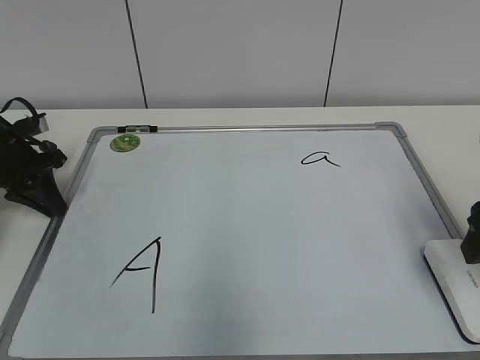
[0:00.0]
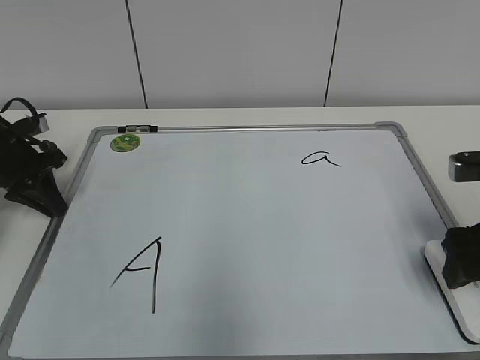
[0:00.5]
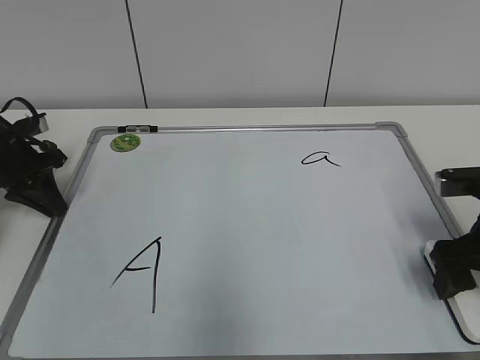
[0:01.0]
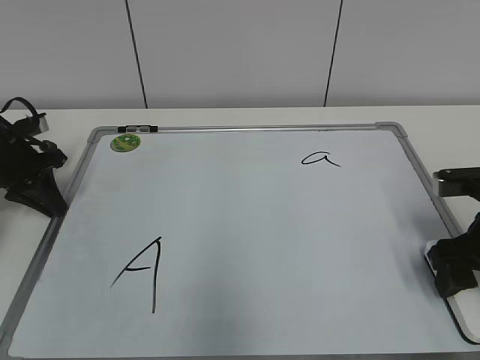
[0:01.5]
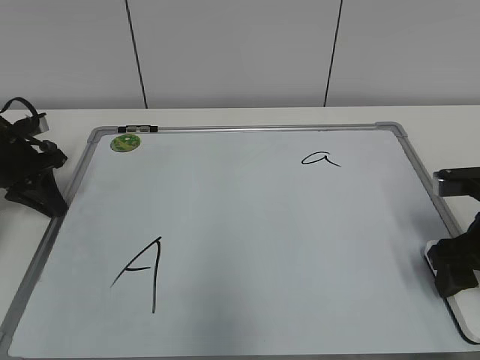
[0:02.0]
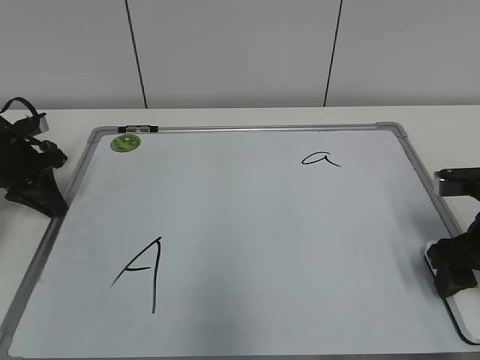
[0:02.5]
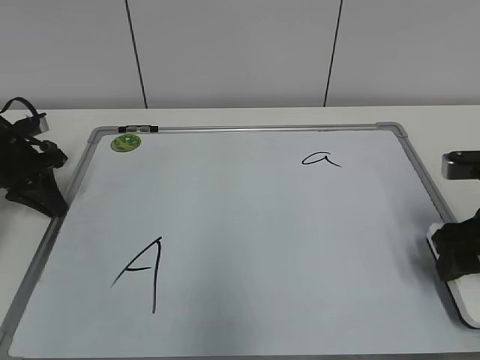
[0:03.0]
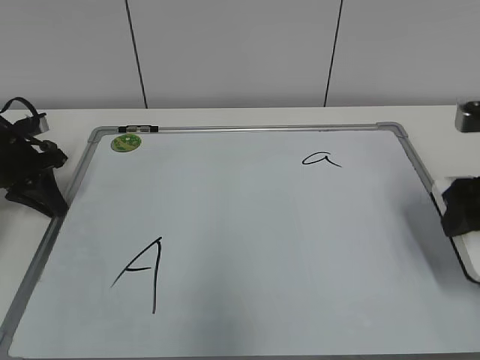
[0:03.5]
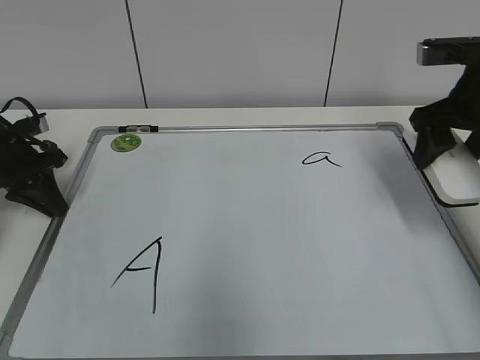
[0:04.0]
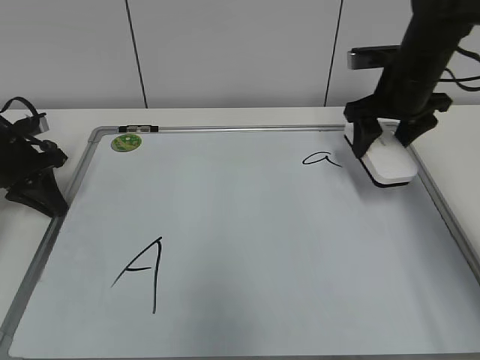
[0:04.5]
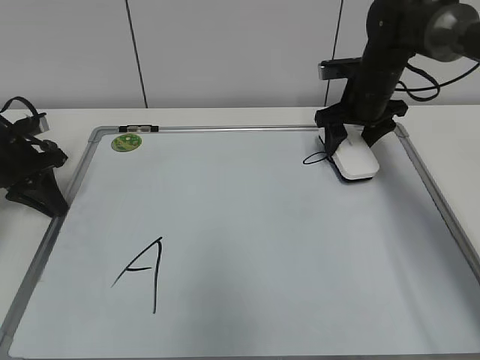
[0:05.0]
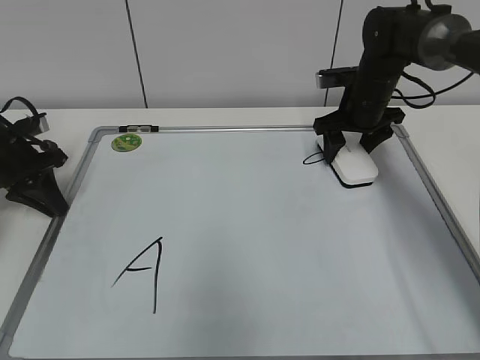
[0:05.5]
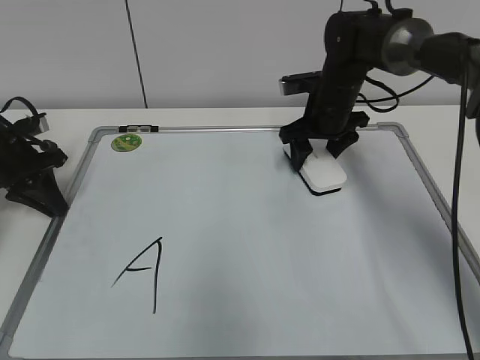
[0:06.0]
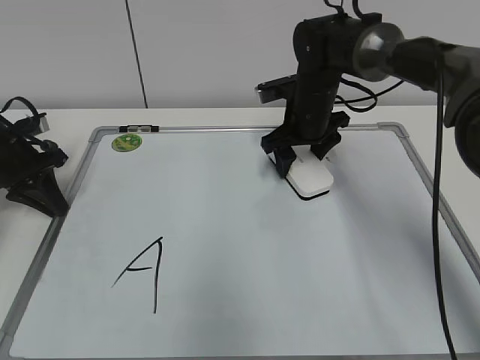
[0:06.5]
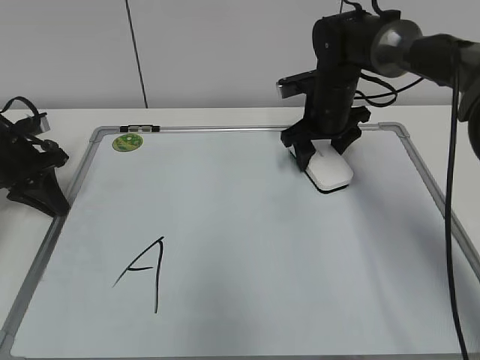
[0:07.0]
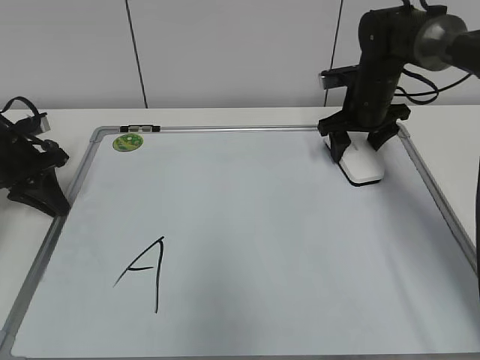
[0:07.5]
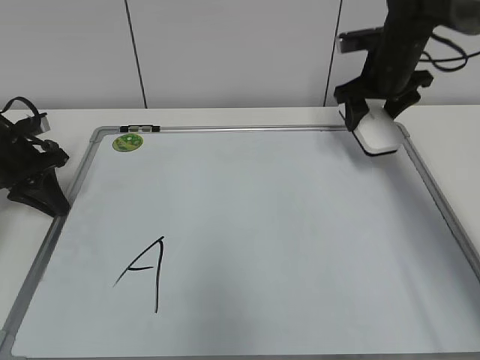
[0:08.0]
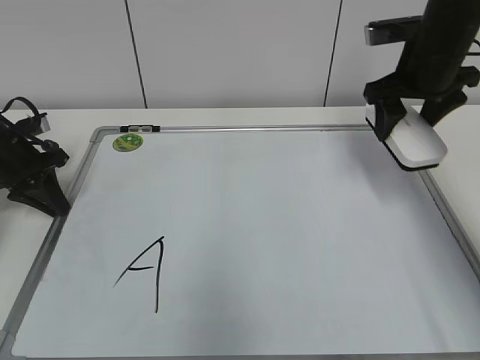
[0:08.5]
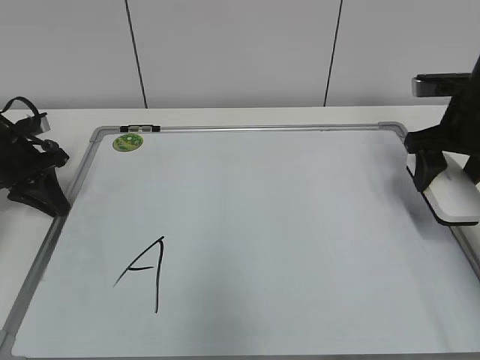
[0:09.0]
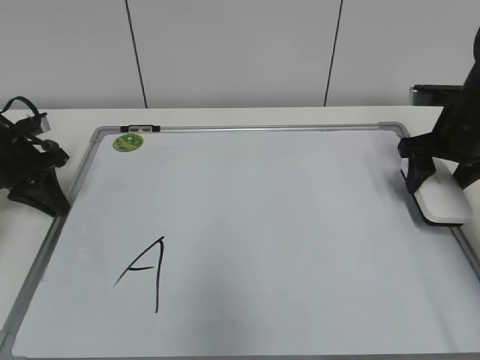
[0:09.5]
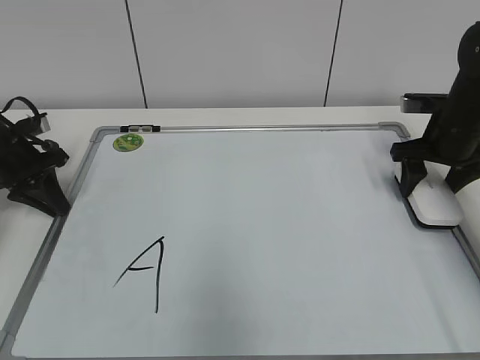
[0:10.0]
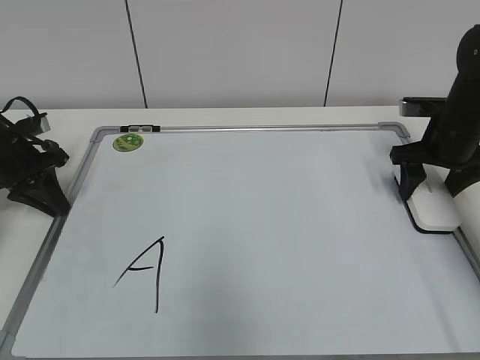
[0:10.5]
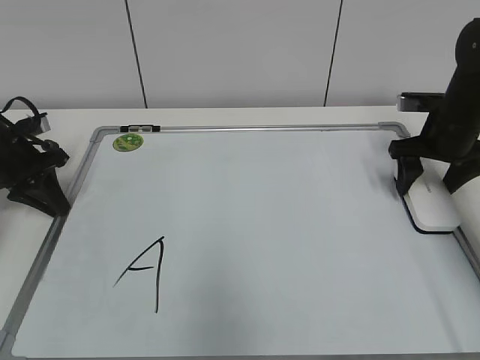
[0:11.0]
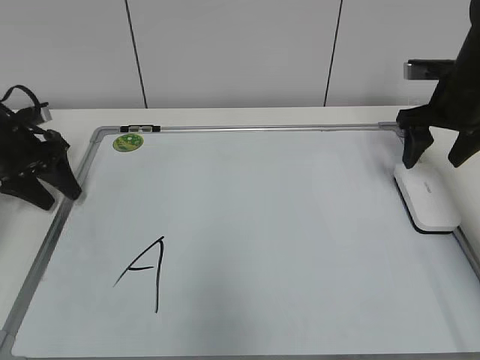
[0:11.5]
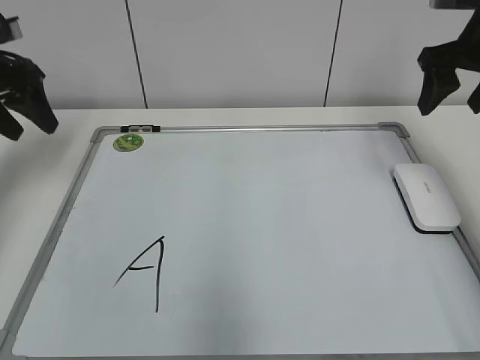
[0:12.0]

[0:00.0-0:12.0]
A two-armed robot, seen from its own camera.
Task of the whole recording: pick up the eraser on the blackboard and erase the letter "a".
Step, 0:00.0 to 0:02.5: Grab the eraser with your right hand.
Step, 0:03.0 to 0:07.5: Erase the letter a with your right hand.
Step, 0:08.0 to 0:10.5: Put down the eraser with your right hand.
0:00.0 to 0:02.0: The right gripper shifts approximately 5 cm downward, and closes.
0:02.0 to 0:04.0: The right gripper travels upward and forward by roughly 15 cm.
0:04.0 to 0:06.0: The right gripper moves forward, to the left and downward, about 20 cm.
0:06.0 to 0:08.0: The right gripper shifts approximately 10 cm to the right and upward.
0:08.0 to 0:10.0: The right gripper moves backward, to the right and downward, approximately 10 cm.
0:10.0 to 0:12.0: Both grippers travel together upward, about 15 cm. The left gripper opens. The right gripper opens its fingers.

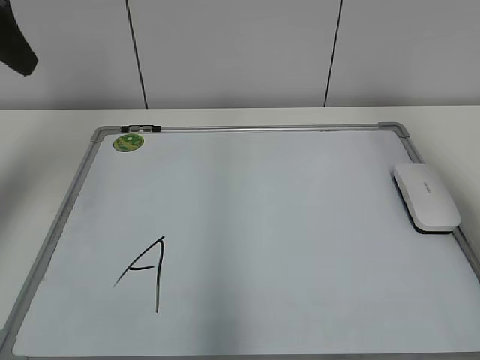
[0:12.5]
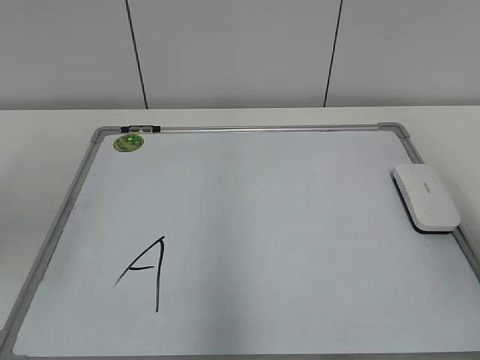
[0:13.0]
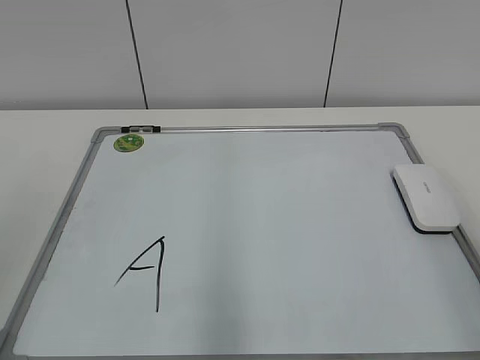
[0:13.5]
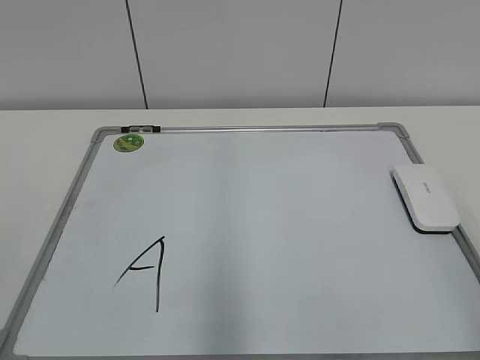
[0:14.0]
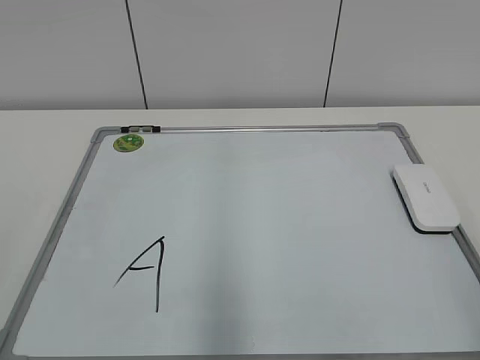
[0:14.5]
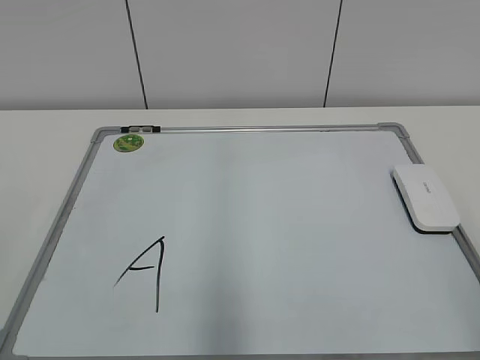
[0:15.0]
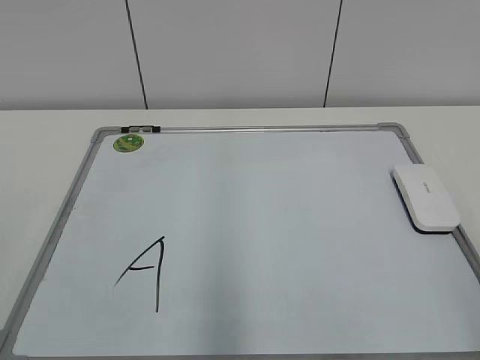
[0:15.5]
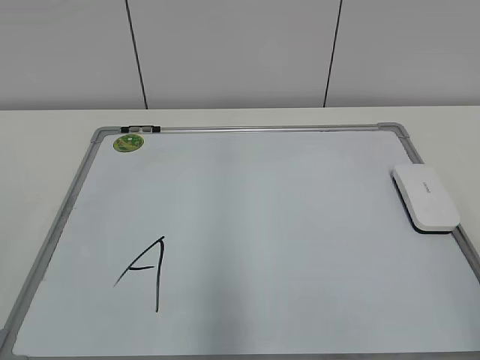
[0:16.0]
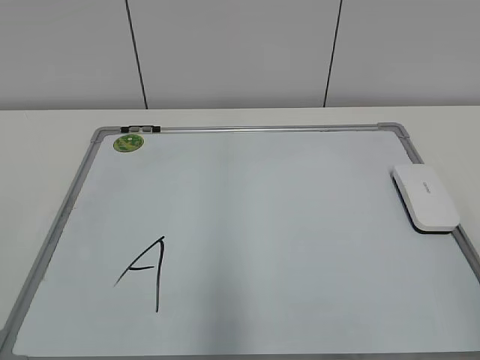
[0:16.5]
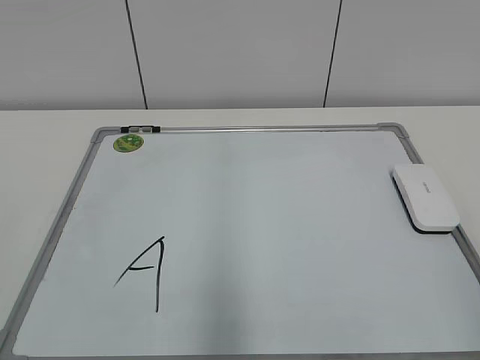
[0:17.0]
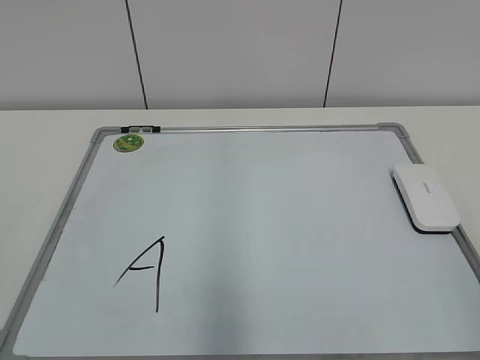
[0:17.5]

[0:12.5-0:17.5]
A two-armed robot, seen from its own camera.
Task of the whole recording: pick up the eraser on the blackboard and erase the letter "a".
0:12.5 to 0:15.0: The grippers both shift backward by approximately 30 cm.
